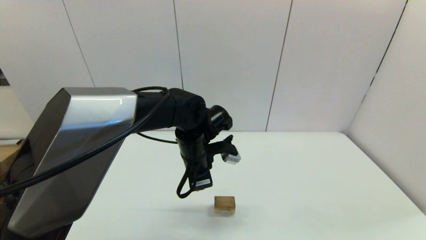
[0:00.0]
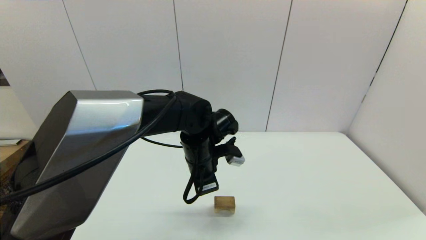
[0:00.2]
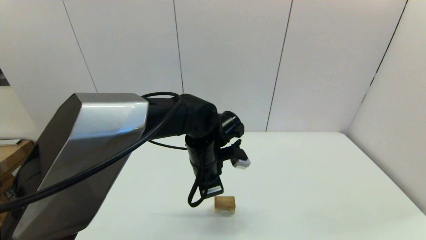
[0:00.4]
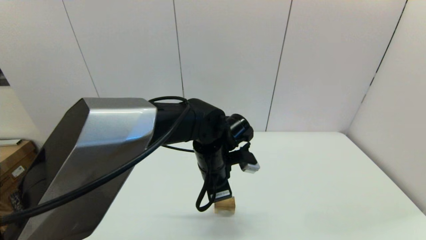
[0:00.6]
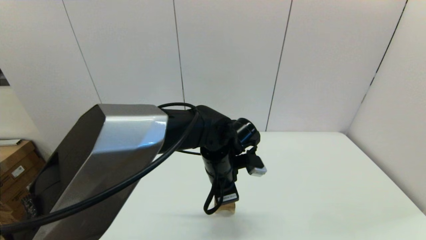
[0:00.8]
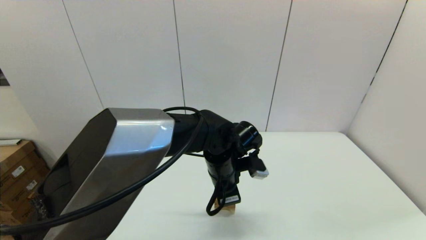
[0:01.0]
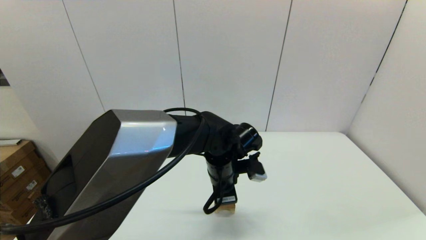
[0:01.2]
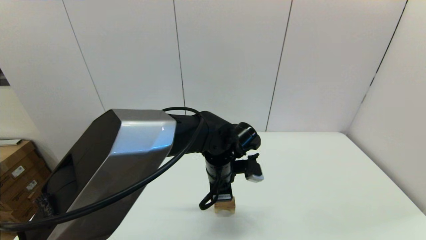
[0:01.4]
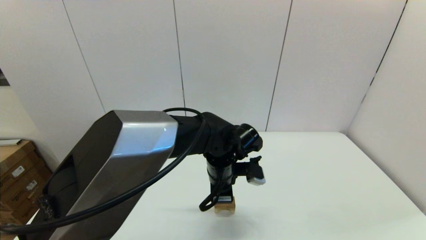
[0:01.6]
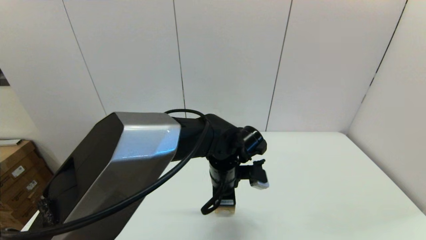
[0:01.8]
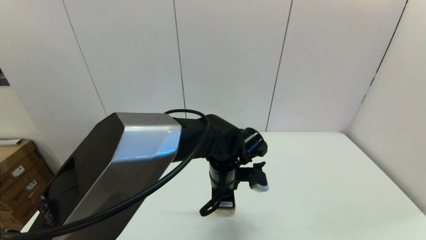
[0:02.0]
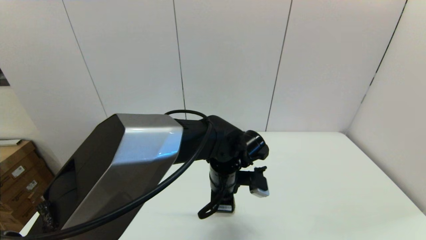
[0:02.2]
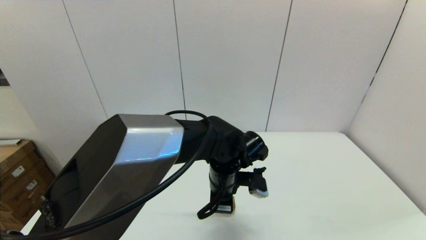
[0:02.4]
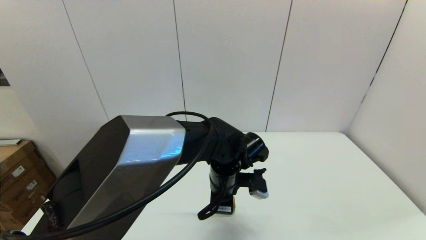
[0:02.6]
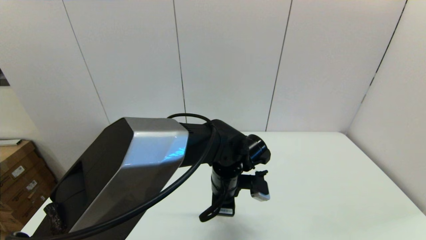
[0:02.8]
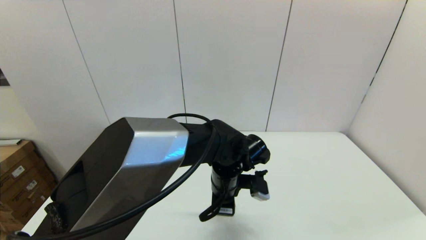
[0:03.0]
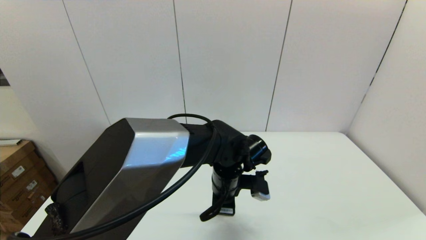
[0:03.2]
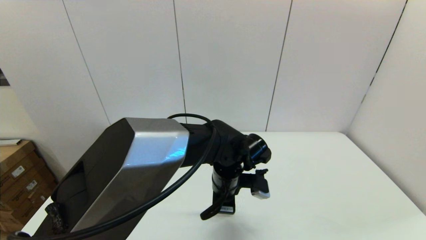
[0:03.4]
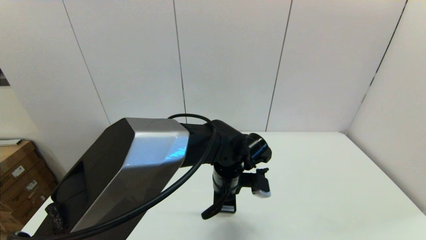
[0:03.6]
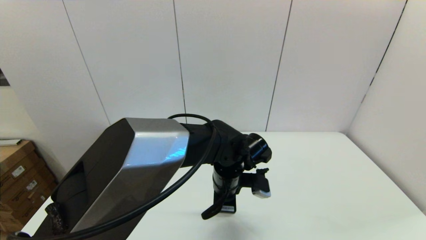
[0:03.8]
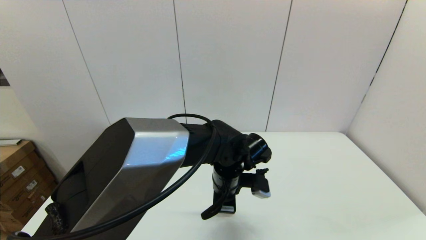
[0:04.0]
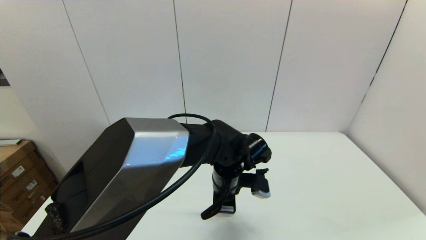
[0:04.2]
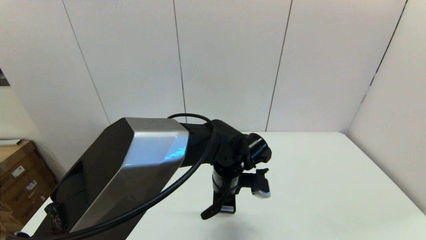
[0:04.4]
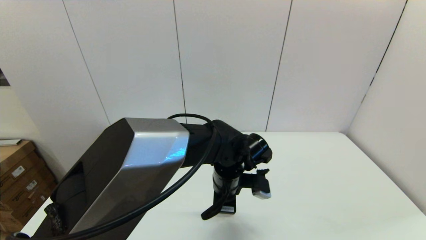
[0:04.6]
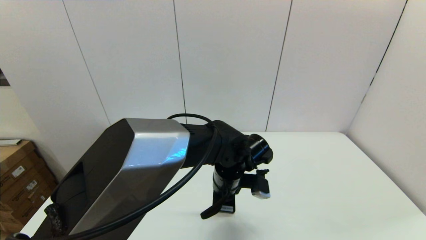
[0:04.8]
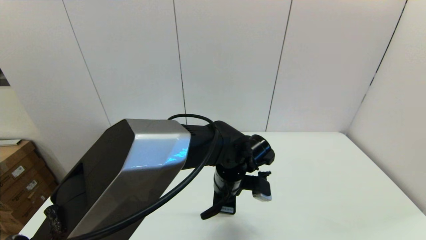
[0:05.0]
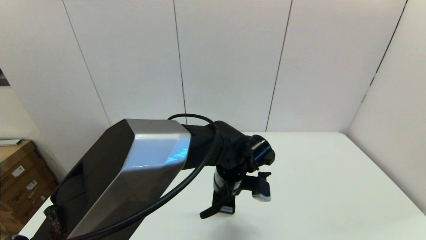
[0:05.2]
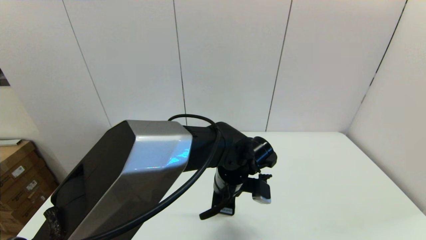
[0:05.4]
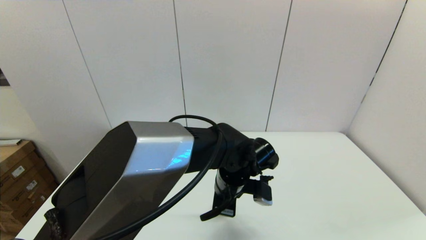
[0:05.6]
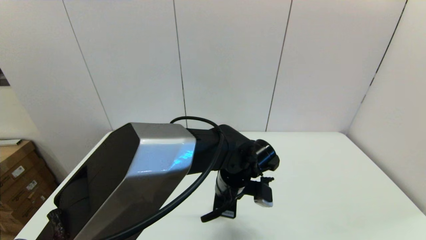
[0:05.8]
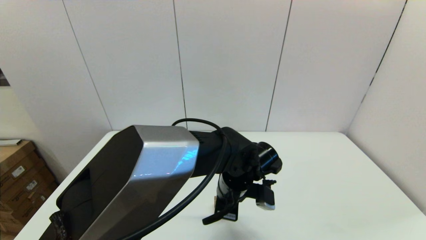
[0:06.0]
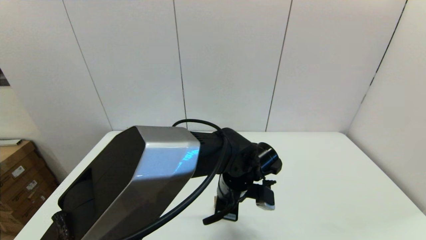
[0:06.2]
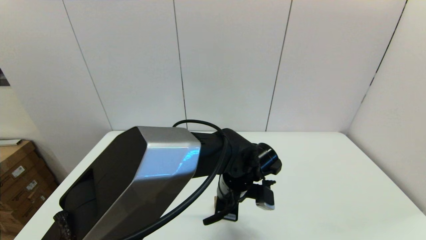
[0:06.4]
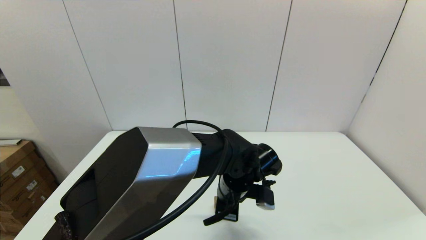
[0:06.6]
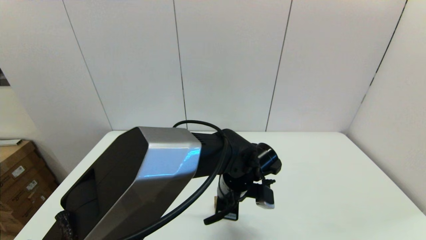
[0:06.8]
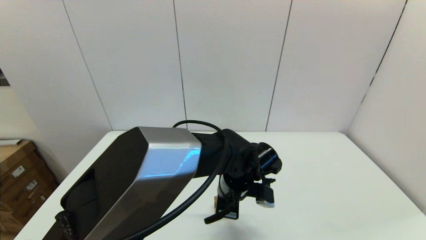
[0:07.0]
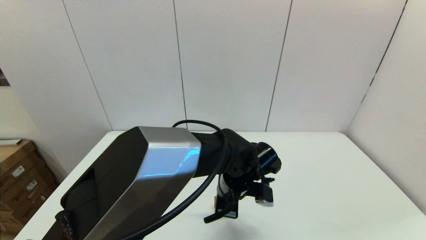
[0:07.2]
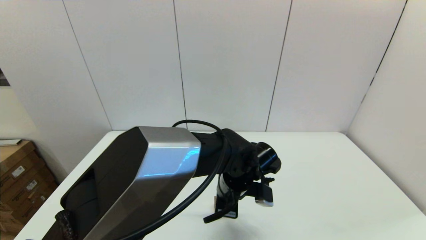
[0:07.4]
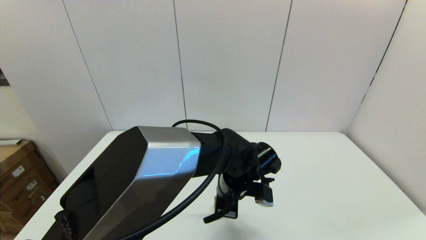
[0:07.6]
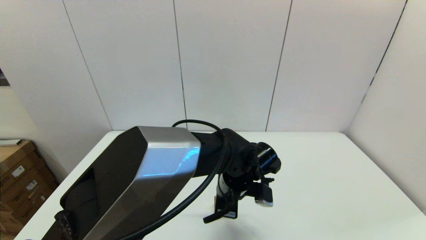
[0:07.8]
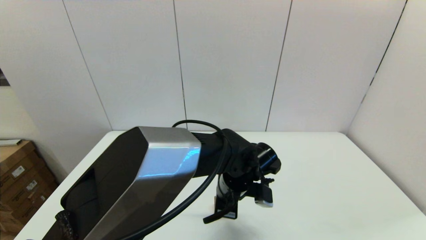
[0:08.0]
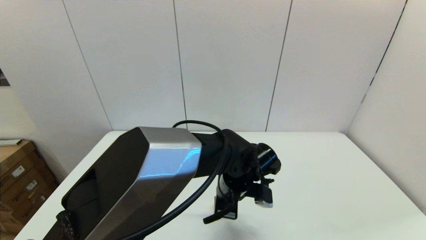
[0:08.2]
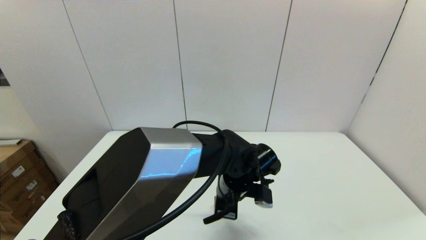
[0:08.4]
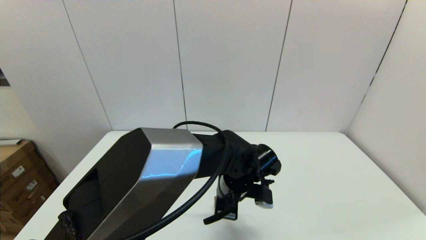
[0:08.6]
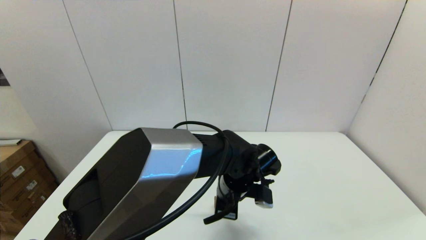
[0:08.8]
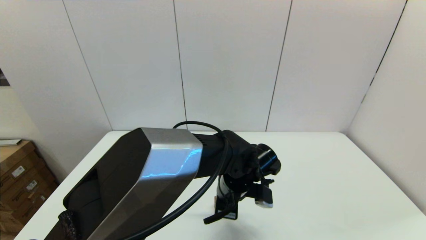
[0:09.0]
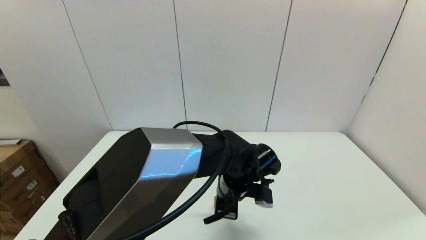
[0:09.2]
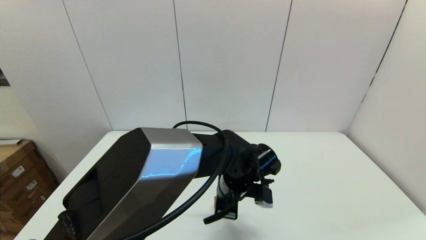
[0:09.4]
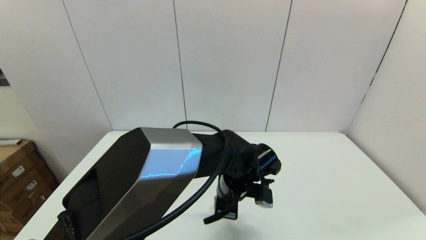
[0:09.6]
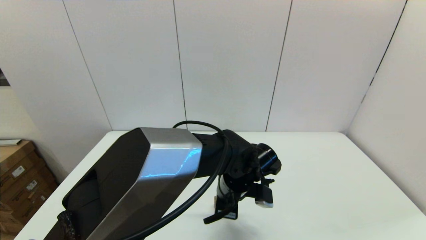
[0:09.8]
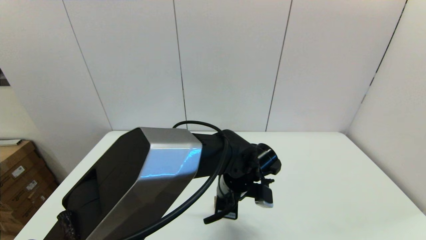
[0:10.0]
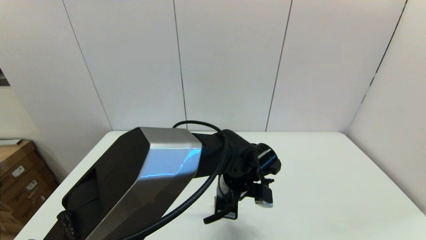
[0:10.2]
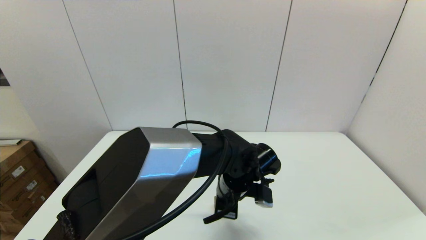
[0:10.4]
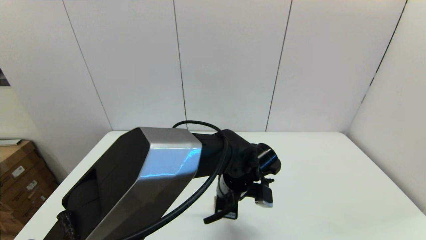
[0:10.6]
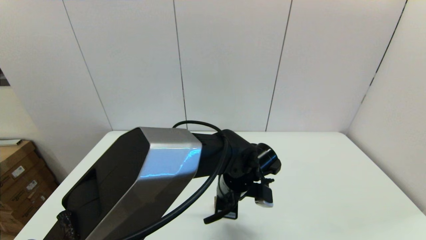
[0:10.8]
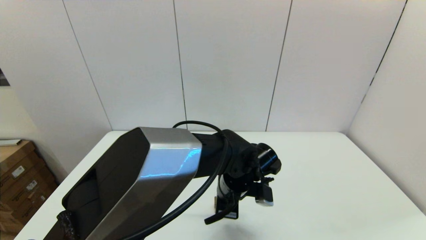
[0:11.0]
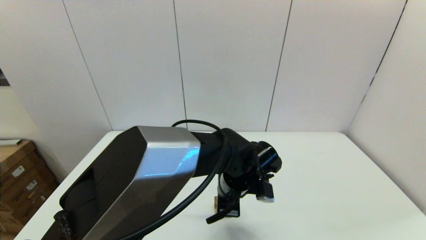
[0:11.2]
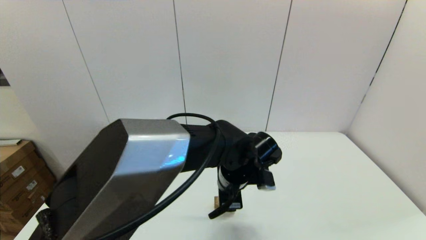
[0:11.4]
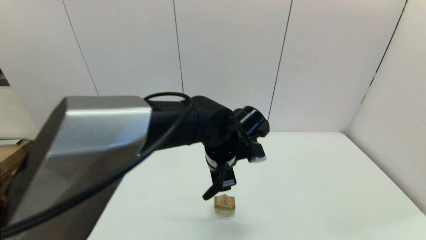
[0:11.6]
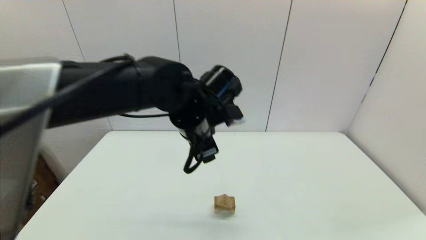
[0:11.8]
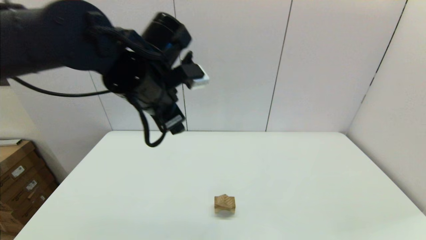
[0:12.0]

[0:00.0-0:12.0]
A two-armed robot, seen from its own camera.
Task of the whole recording: place the arched building blocks in the center of the table, set up the rectangular building blocks, and then set up the triangular building blocks.
0:00.0 to 0:01.6: The left gripper moves to the right, some 5 cm.
0:01.6 to 0:03.0: The grippers make only small movements.
0:03.0 to 0:04.4: Both grippers stay about where they are.
0:04.4 to 0:06.0: The grippers make only small movements.
0:06.0 to 0:10.4: Both grippers stay about where they are.
0:10.4 to 0:12.0: The left gripper goes approximately 25 cm upward and to the left, and opens its fingers.

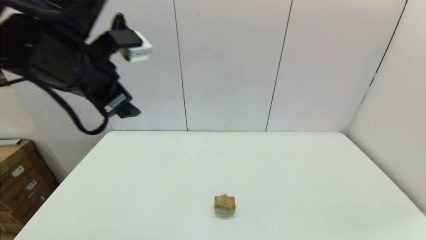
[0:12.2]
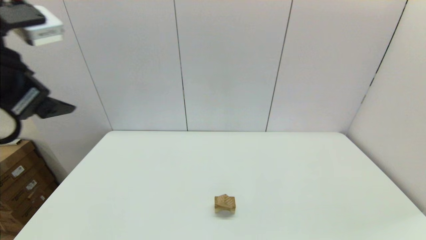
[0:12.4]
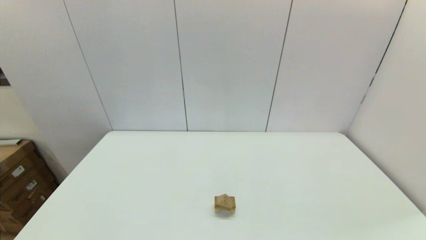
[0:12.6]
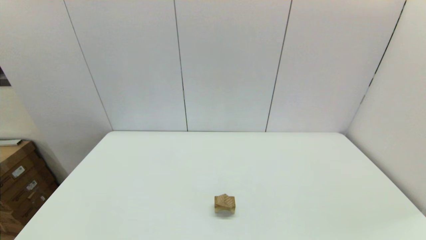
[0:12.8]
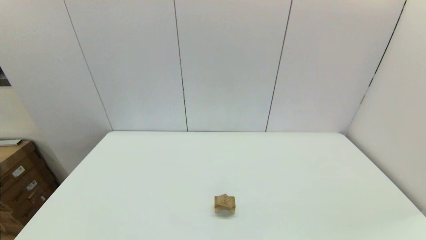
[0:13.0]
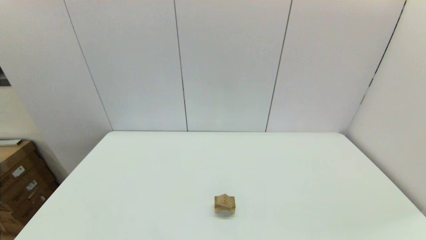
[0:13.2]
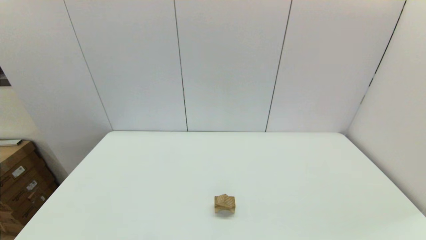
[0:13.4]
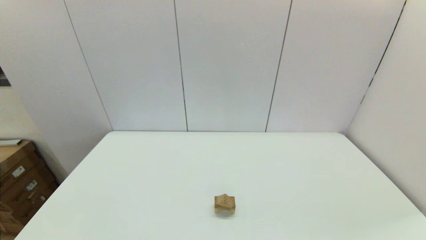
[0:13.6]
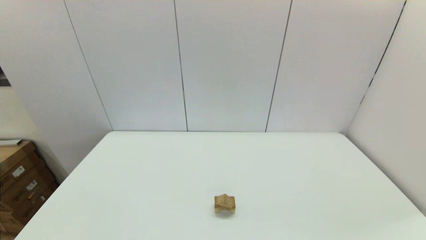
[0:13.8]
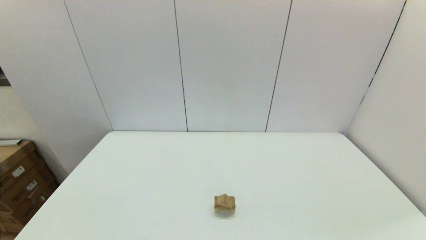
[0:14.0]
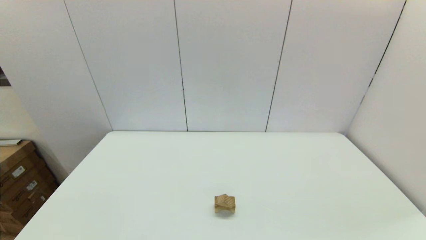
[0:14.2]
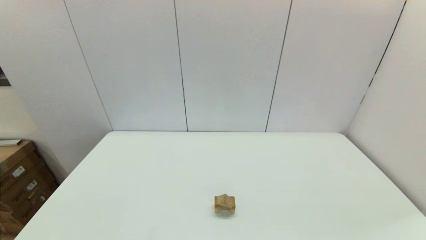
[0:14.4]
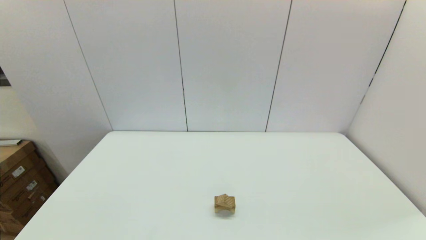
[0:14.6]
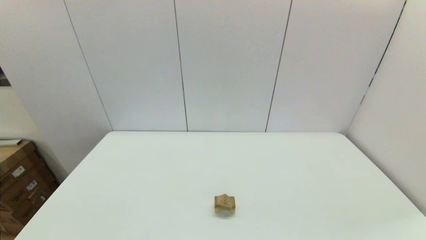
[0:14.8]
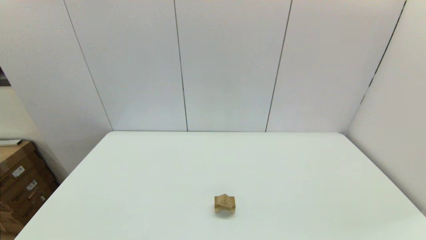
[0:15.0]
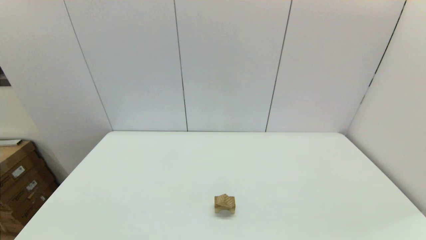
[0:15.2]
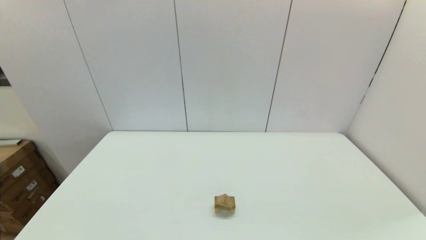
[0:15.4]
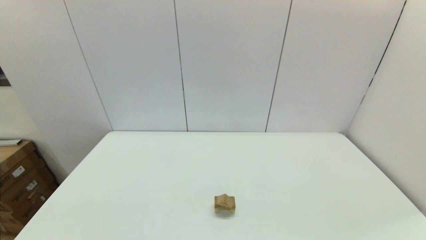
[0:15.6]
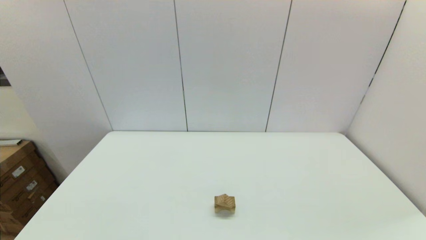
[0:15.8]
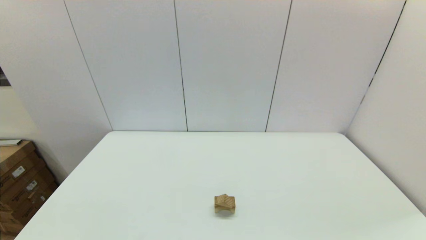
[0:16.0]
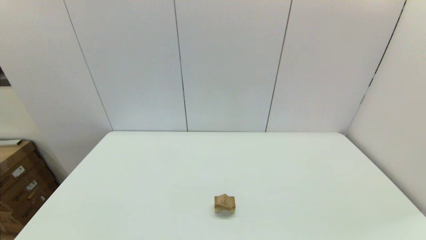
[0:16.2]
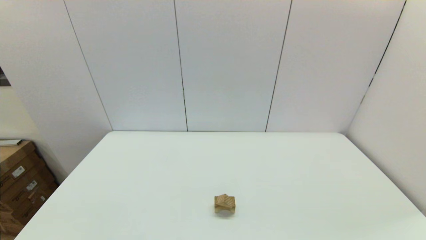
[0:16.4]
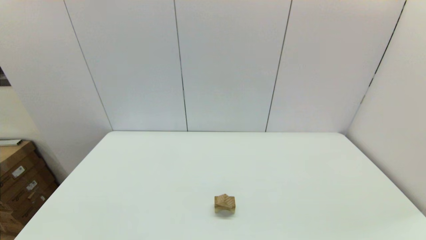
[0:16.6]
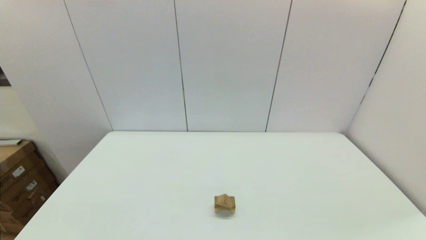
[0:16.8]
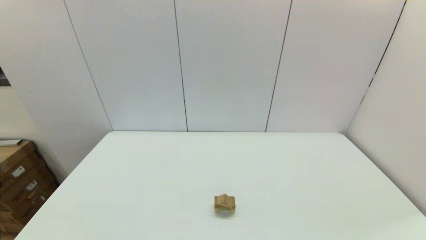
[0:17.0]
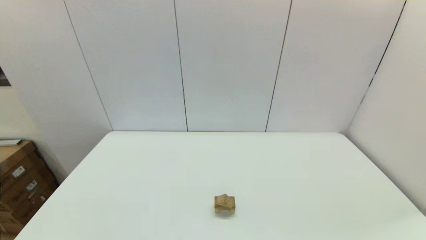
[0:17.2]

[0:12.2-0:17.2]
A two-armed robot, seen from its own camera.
Task of the whole recording: place the arched building blocks in the center of the table, set up the rectangular building blocks, and then set up the triangular building blocks.
0:12.2 to 0:13.8: The left gripper goes approximately 35 cm backward, downward and to the left.
0:15.6 to 0:17.2: Neither gripper changes place.
